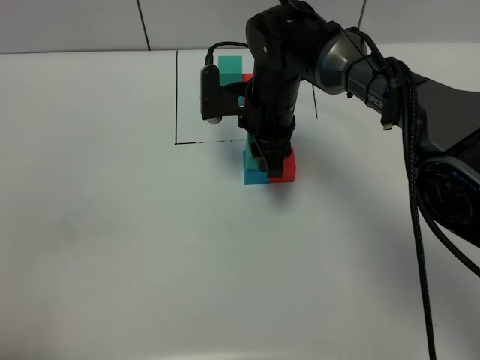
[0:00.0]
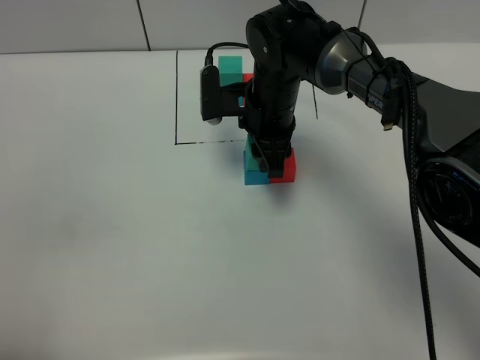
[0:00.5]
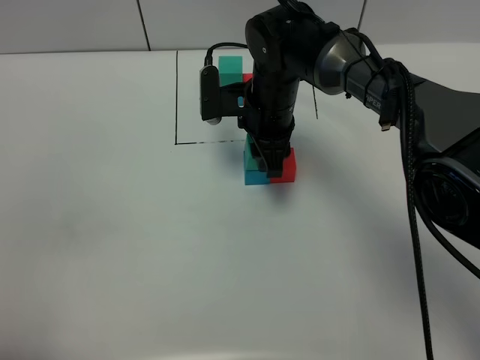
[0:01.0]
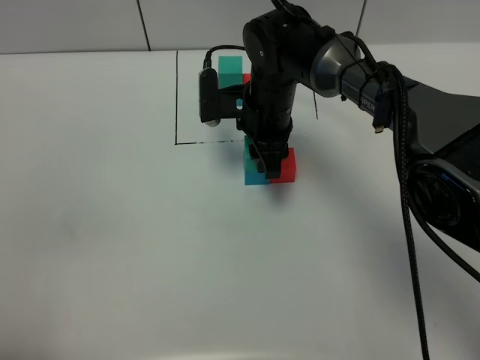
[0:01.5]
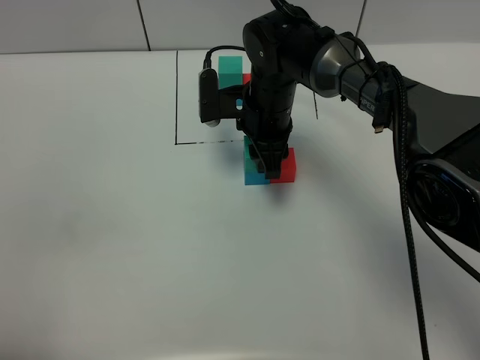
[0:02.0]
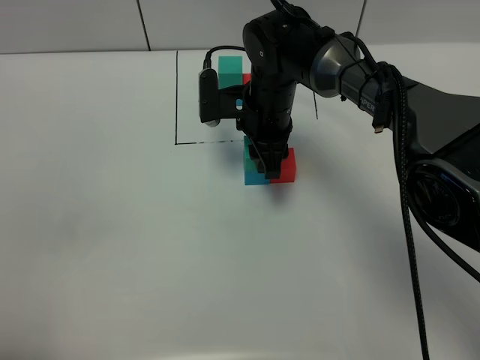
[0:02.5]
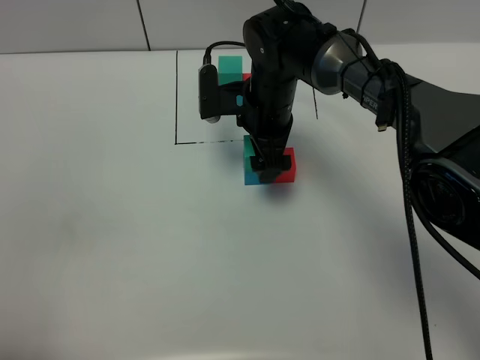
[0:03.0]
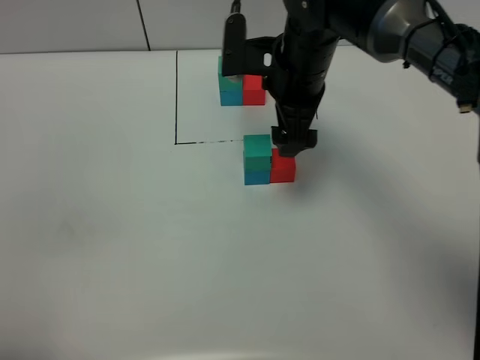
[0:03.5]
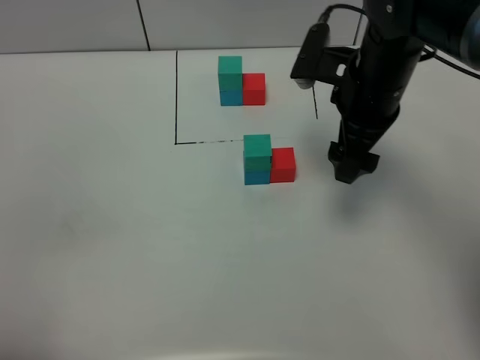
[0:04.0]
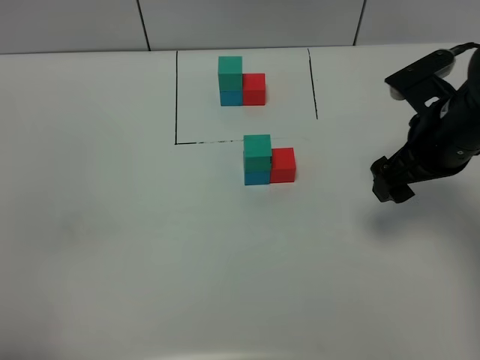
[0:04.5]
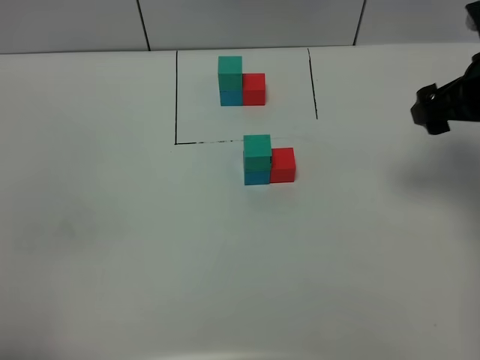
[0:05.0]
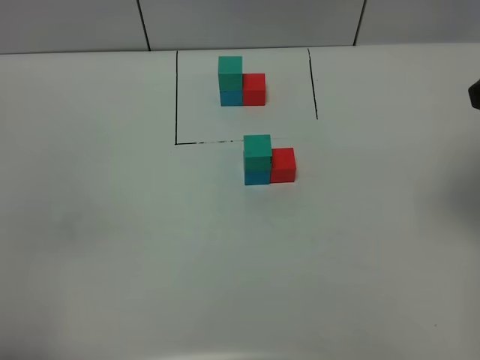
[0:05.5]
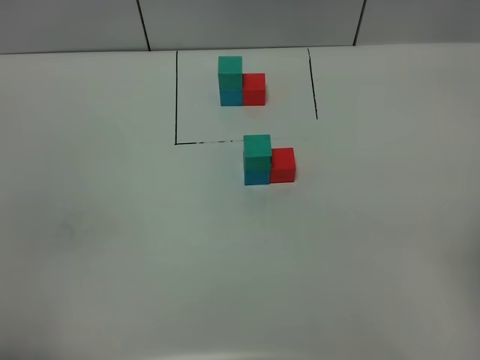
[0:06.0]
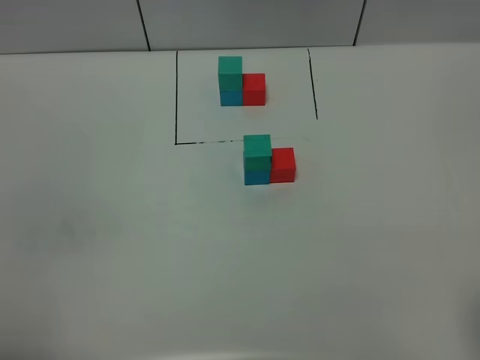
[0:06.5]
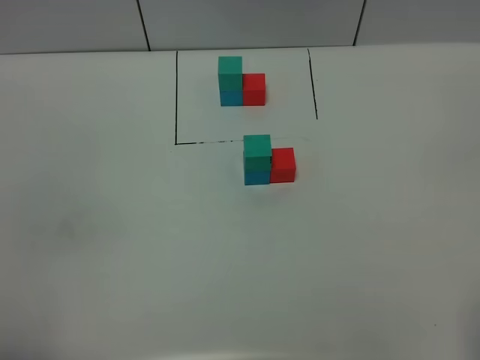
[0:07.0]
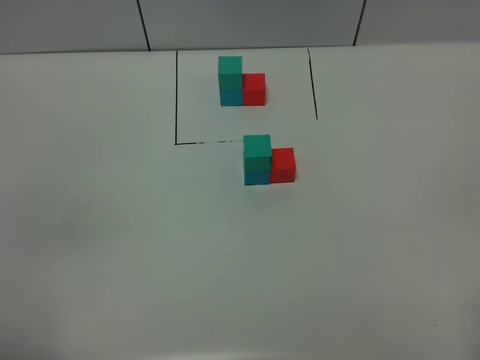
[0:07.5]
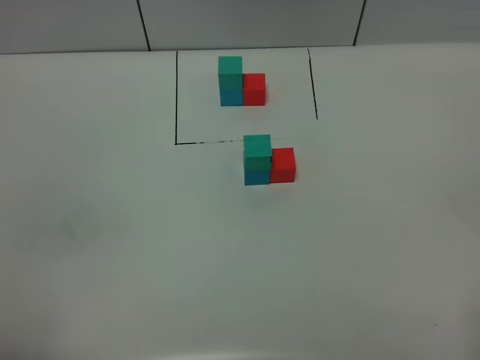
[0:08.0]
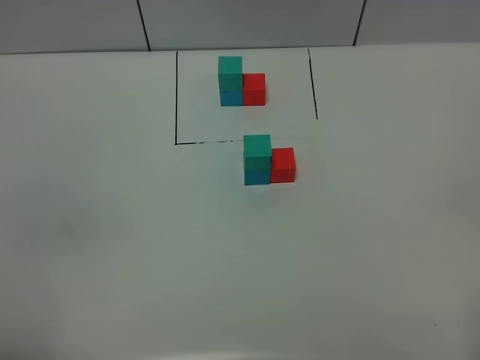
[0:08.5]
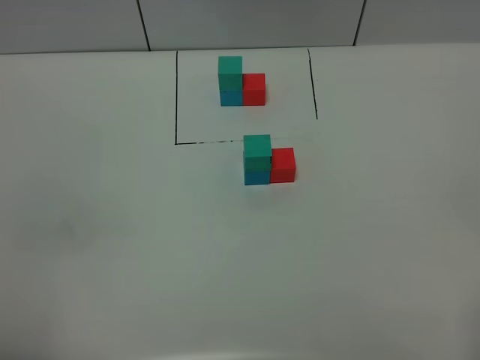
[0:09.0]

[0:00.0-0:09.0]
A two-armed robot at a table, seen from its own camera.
Task of the whole recording: According to the building block template in front, assemble the scattered blocks together.
Step, 0:00.0 to 0:02.5: Put the green build block on the blue build block.
0:00.0 to 0:02.0: Both grippers stay about where they are.
0:02.0 to 0:04.5: The right gripper is displaced to the right and backward by roughly 20 cm, and opens up.
0:04.5 to 0:07.0: The right gripper moves backward, roughly 25 cm.

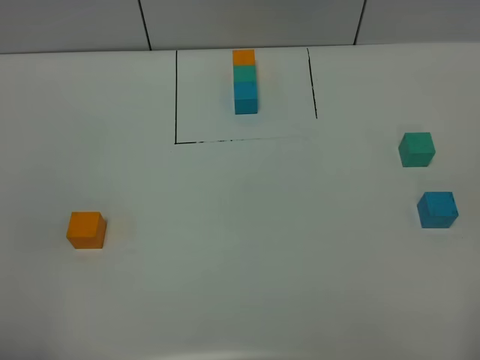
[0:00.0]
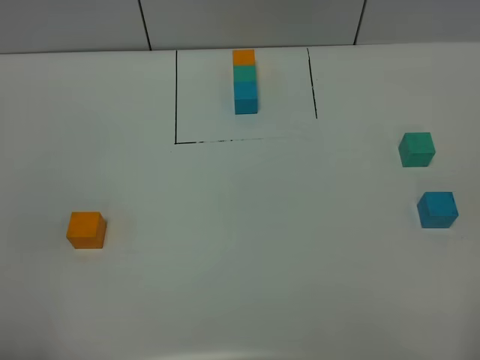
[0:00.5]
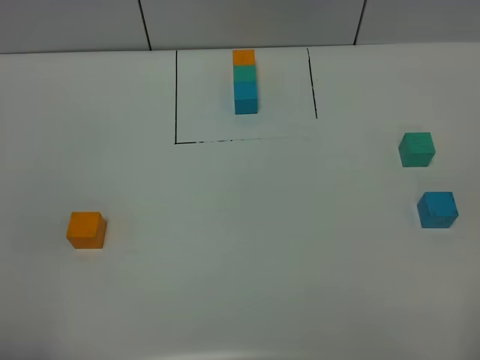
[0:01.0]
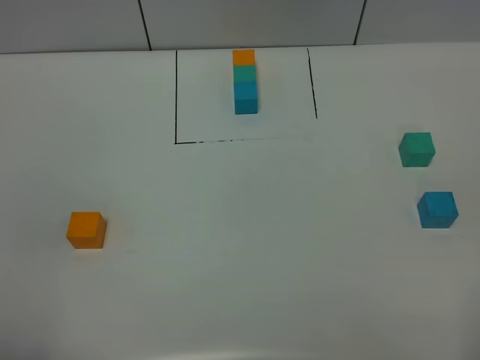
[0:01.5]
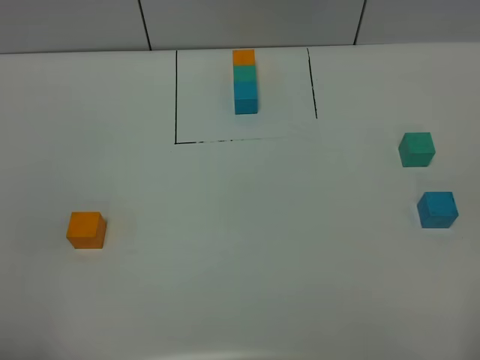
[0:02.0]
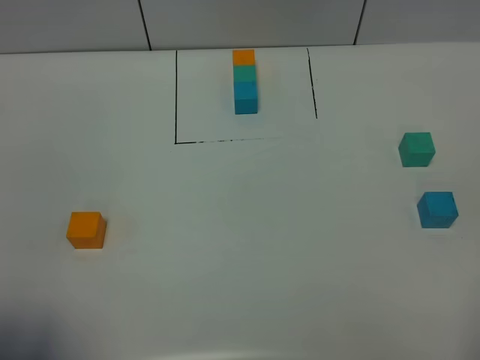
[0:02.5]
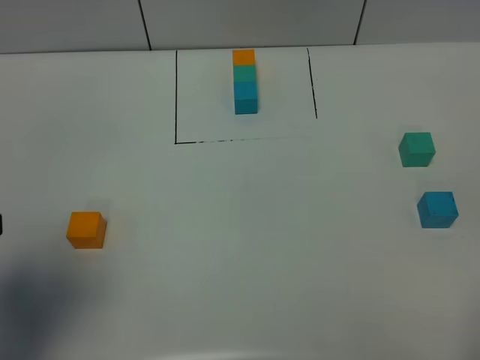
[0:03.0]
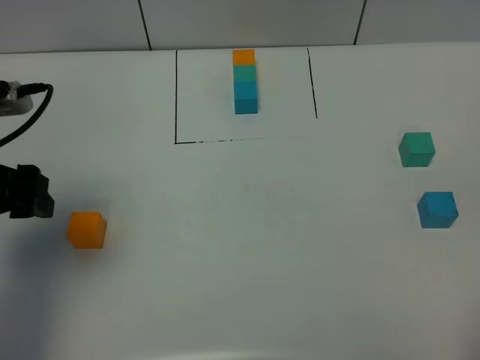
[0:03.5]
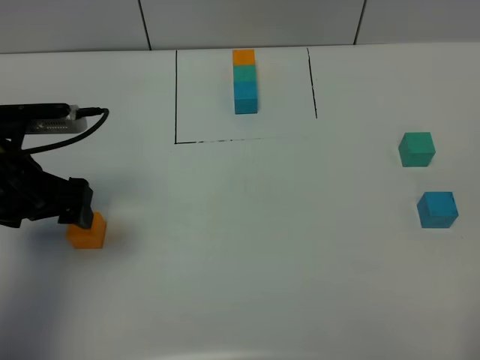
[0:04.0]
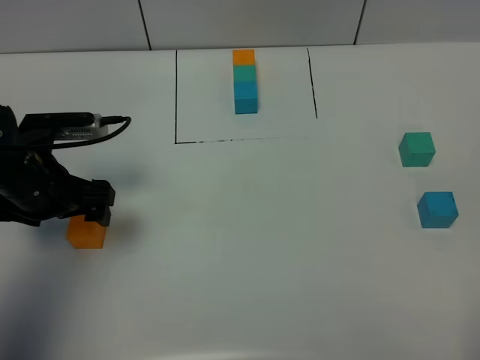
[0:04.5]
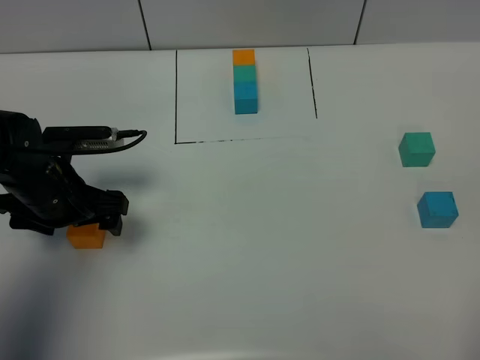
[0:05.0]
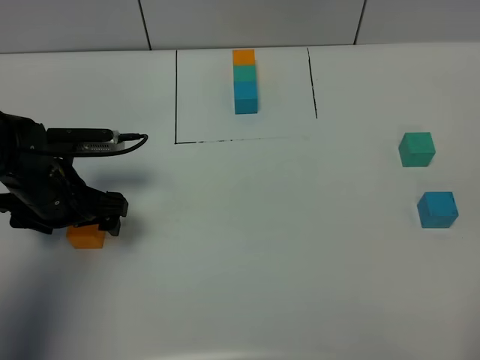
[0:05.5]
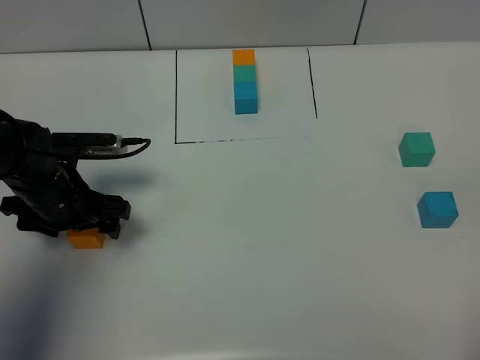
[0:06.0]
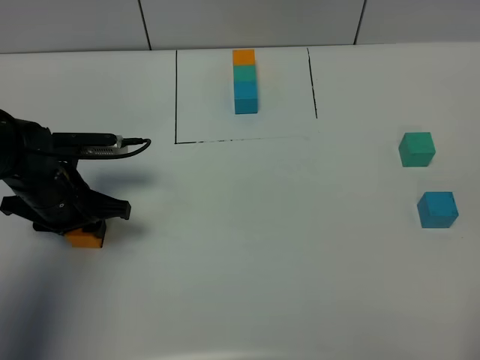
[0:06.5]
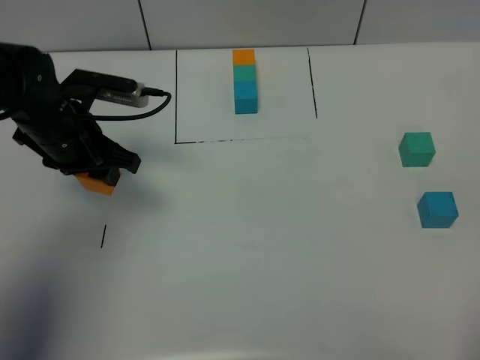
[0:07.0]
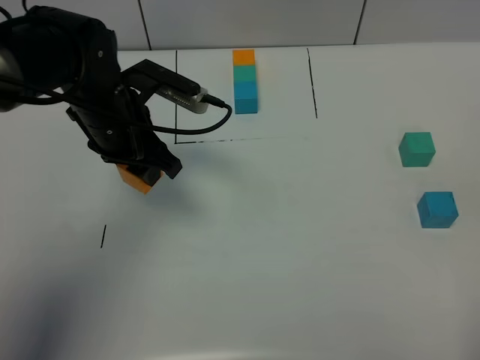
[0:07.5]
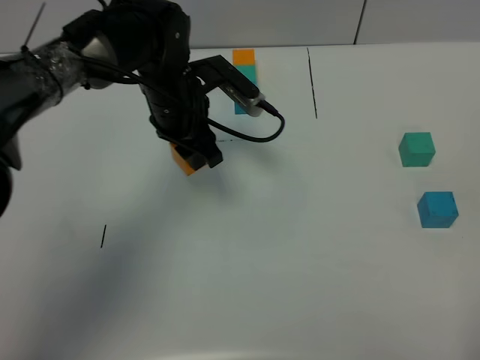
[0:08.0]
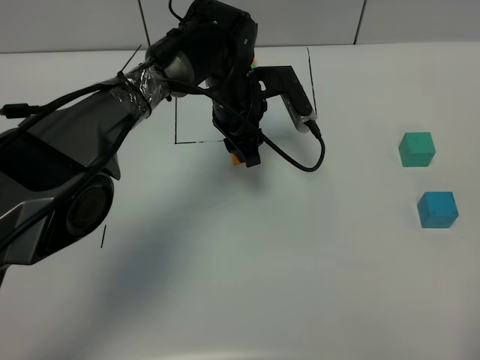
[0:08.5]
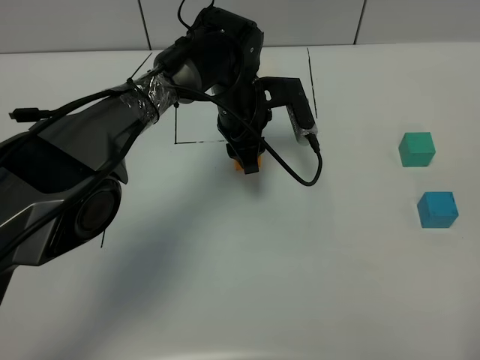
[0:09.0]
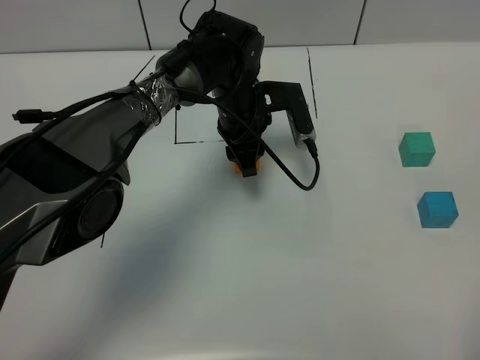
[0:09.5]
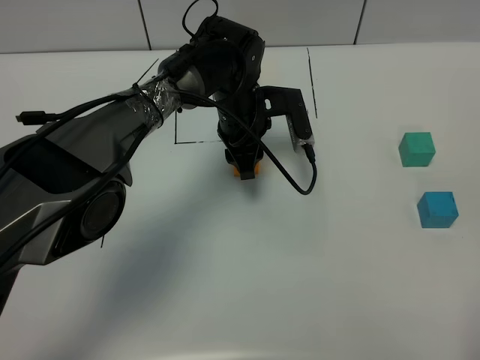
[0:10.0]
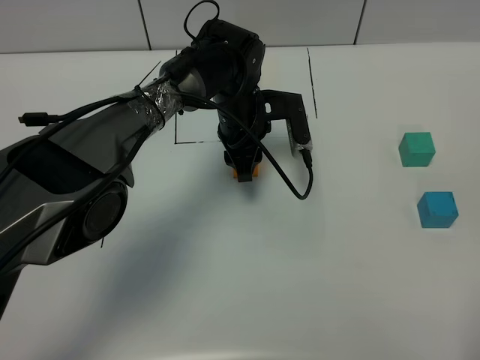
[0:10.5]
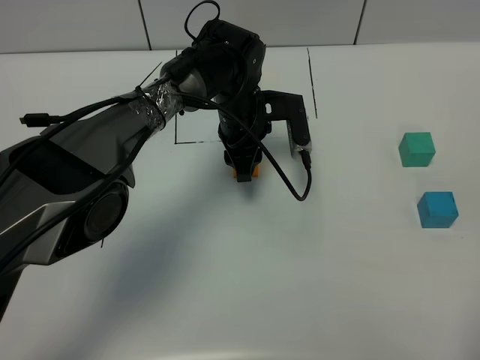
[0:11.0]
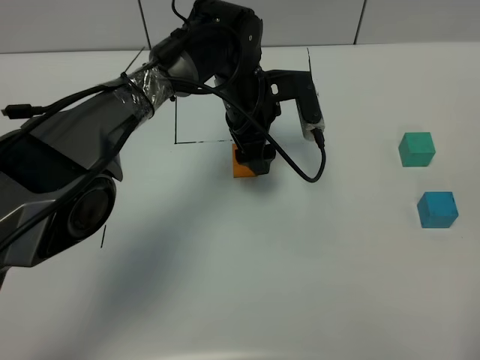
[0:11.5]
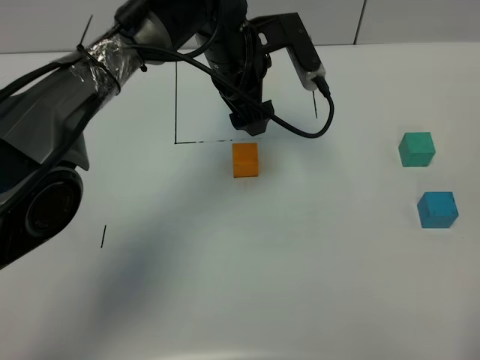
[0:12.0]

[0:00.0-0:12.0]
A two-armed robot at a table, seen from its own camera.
Task of the whole recording: According to the building block template in front, assemble the scattered blocks together.
Step, 0:00.0 to 0:11.0: Put the orange build block in the center of the table.
0:00.0 to 0:02.0: The two grippers keep their place.
0:02.0 to 0:04.0: The left gripper is displaced forward by about 25 cm.
0:04.0 to 0:06.0: The left gripper goes some 10 cm downward.
0:06.0 to 0:08.0: The left gripper shifts some 20 cm to the right and forward, and closes up.
0:08.0 to 0:10.0: The left gripper travels to the right and downward by roughly 10 cm.
0:10.0 to 0:12.0: The left gripper travels upward by about 10 cm, and opens its fingers.

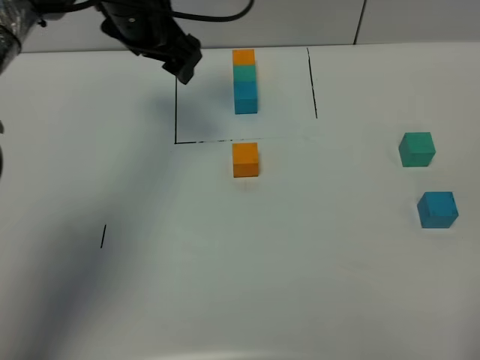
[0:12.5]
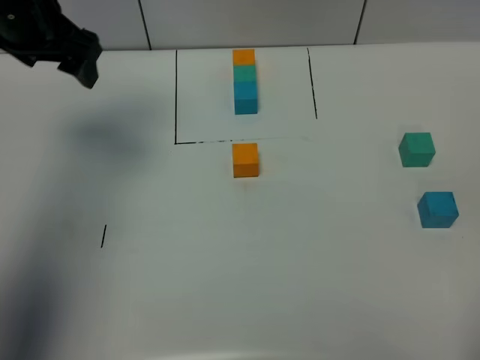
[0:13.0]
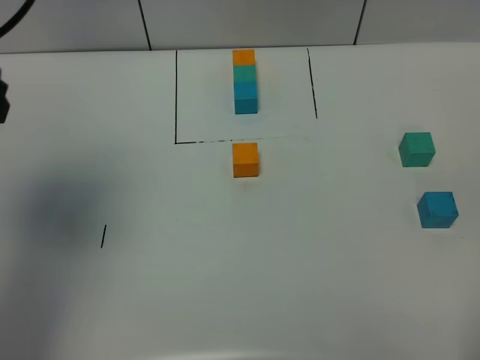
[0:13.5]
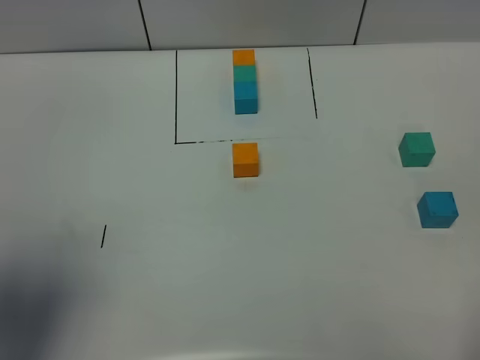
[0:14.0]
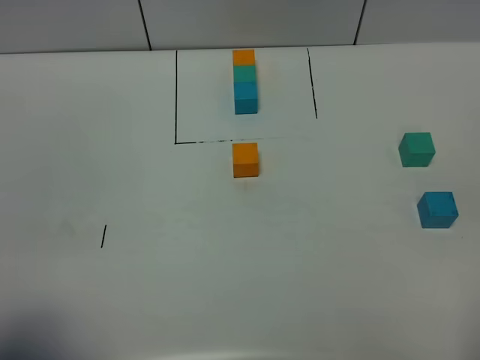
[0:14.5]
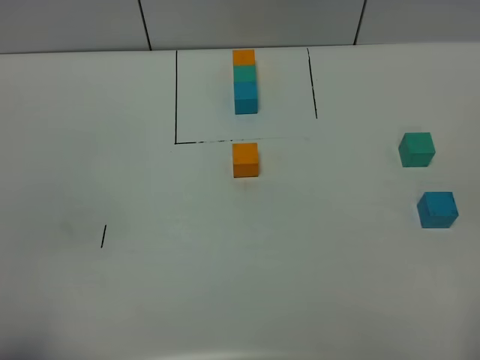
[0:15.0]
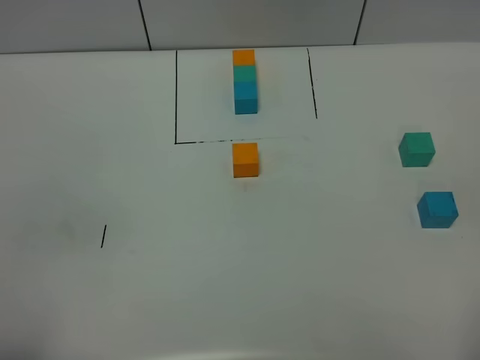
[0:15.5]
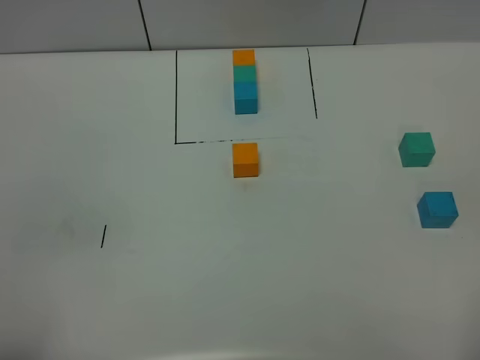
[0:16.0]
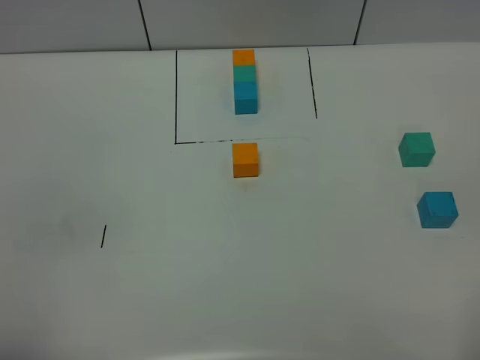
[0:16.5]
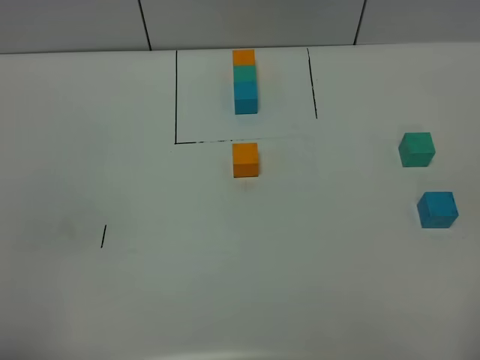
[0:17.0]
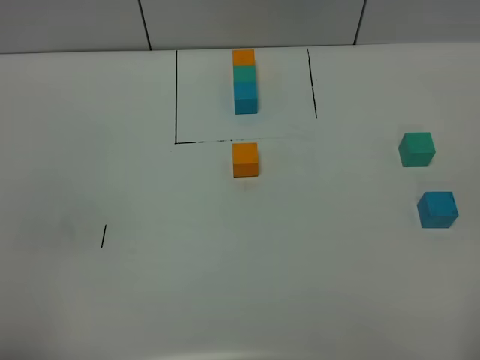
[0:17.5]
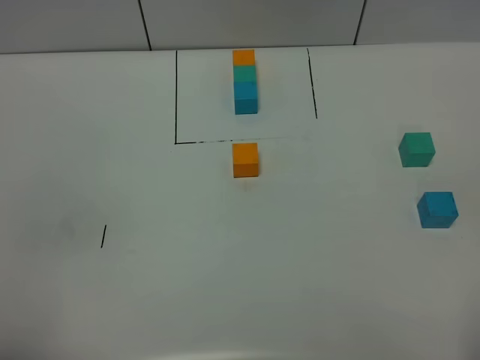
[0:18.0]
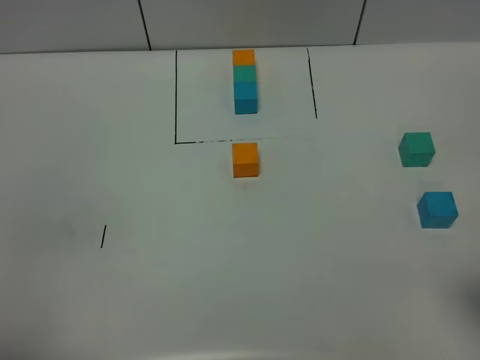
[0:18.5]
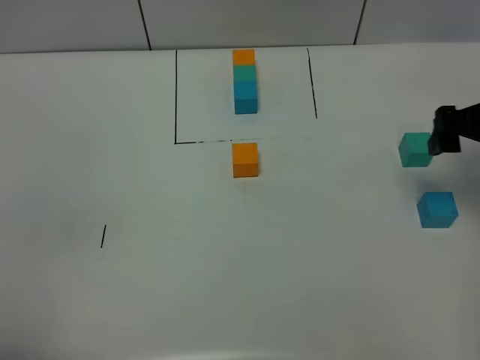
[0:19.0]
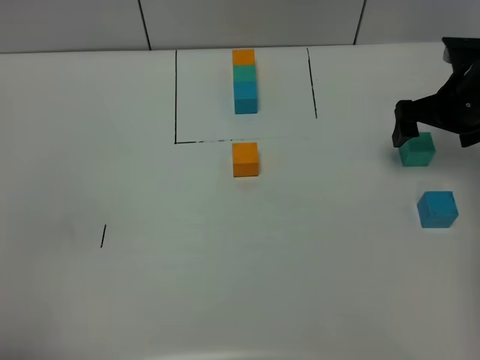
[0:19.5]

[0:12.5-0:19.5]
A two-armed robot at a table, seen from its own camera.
Task of the whole recording: According to the building block template in front, assemble the scattered blocks together.
0:12.5 to 0:14.5: The left gripper is displaced backward by approximately 40 cm.
0:14.5 to 0:16.0: The left gripper heads backward, covering about 5 cm.
0:17.5 to 0:19.5: The right gripper goes roughly 40 cm forward.
